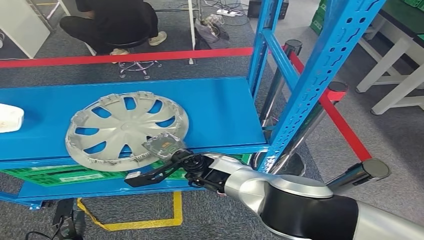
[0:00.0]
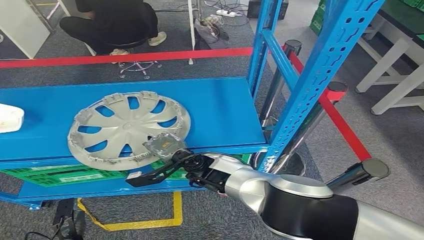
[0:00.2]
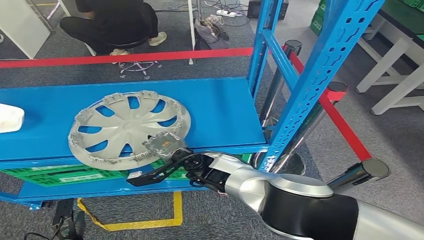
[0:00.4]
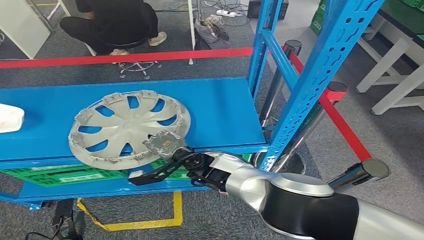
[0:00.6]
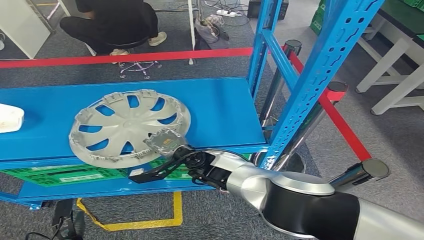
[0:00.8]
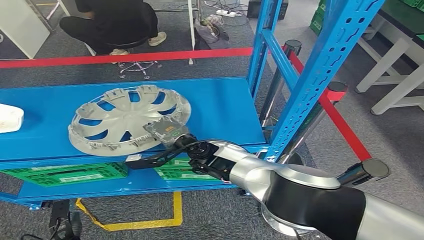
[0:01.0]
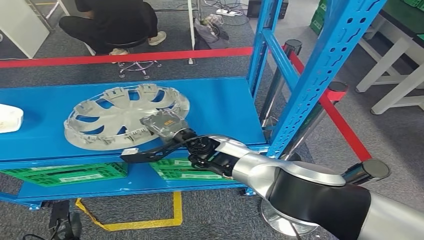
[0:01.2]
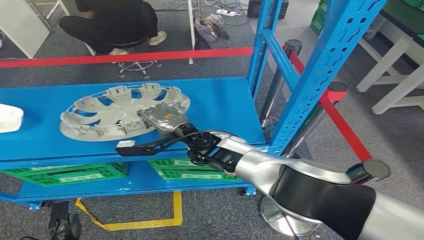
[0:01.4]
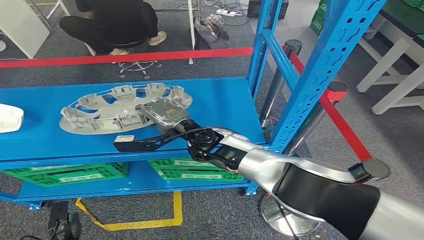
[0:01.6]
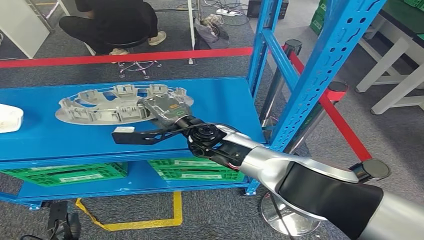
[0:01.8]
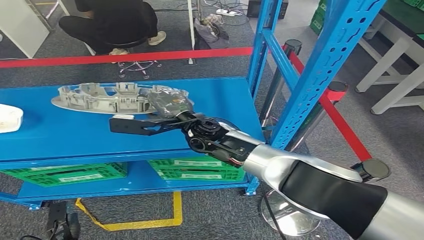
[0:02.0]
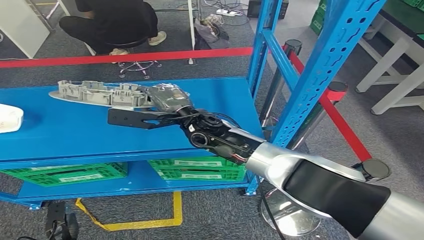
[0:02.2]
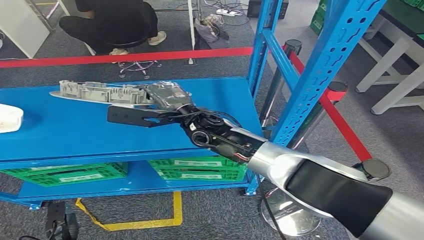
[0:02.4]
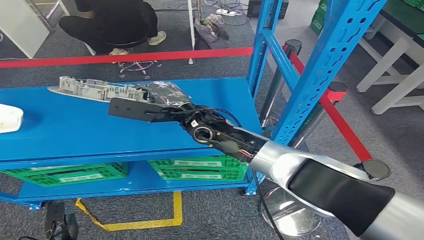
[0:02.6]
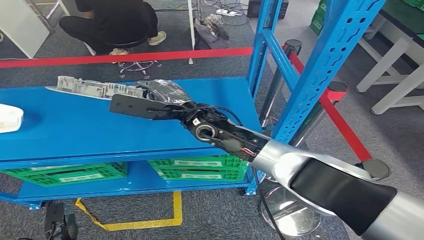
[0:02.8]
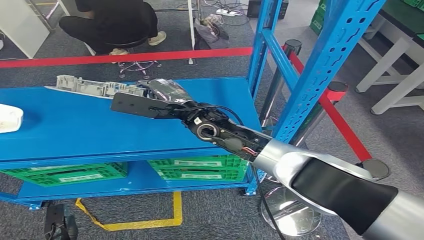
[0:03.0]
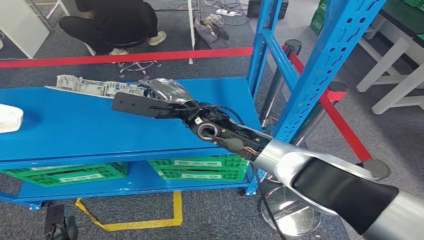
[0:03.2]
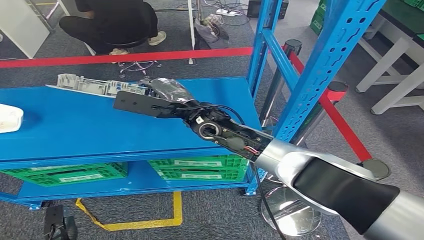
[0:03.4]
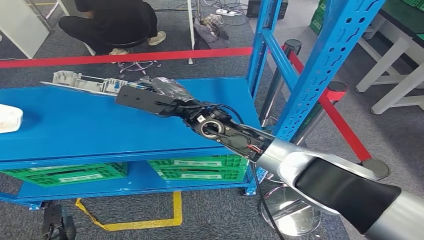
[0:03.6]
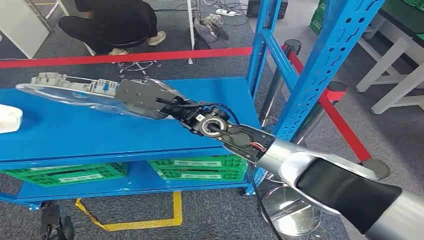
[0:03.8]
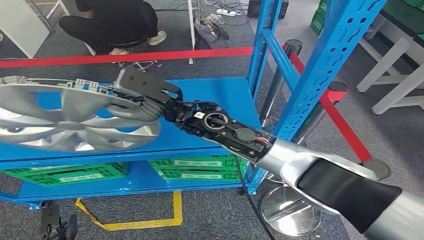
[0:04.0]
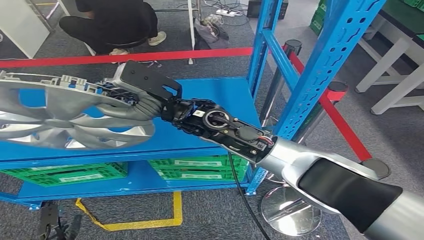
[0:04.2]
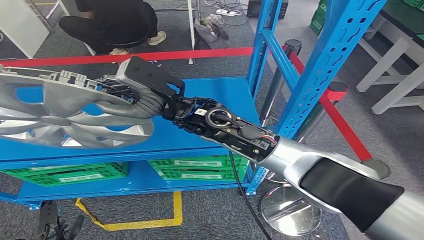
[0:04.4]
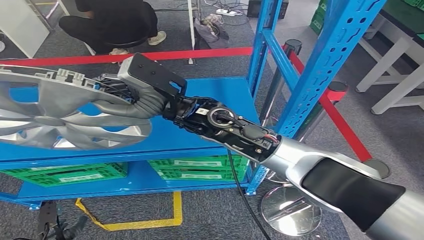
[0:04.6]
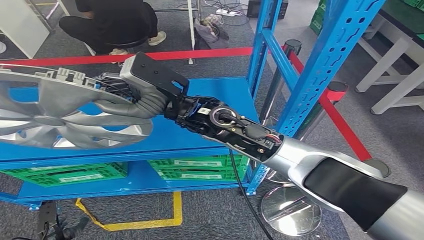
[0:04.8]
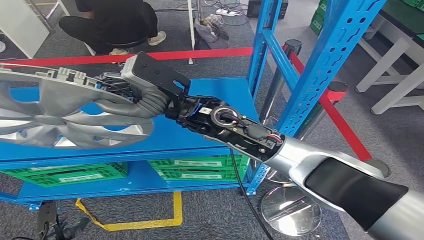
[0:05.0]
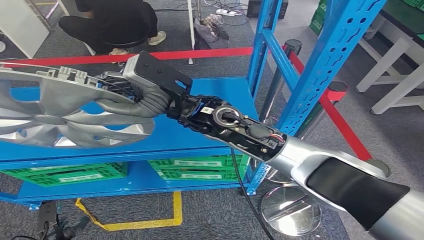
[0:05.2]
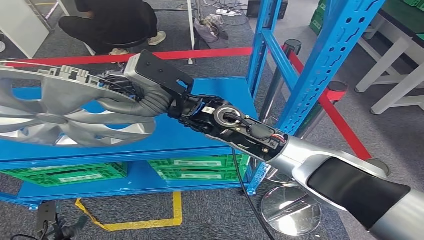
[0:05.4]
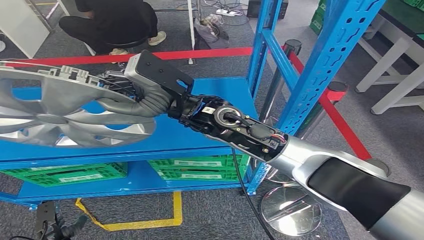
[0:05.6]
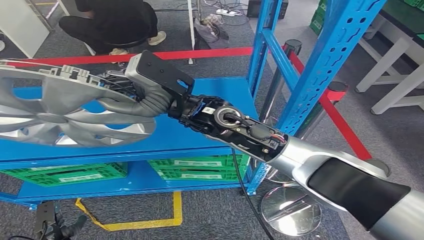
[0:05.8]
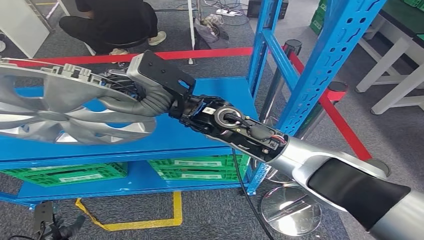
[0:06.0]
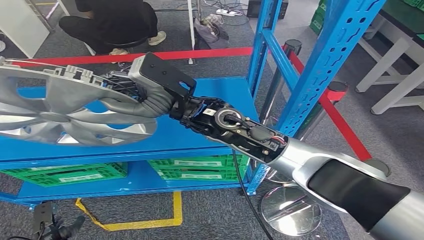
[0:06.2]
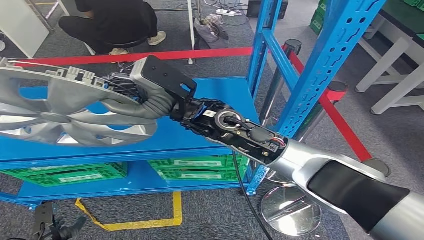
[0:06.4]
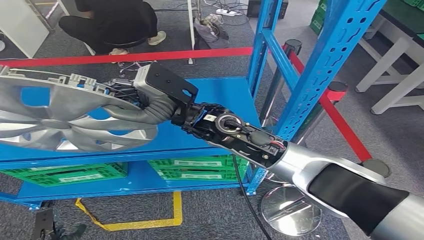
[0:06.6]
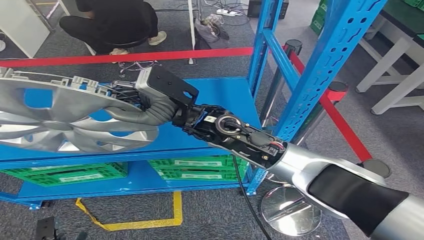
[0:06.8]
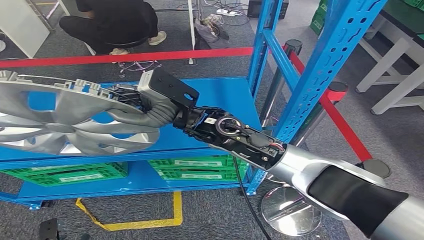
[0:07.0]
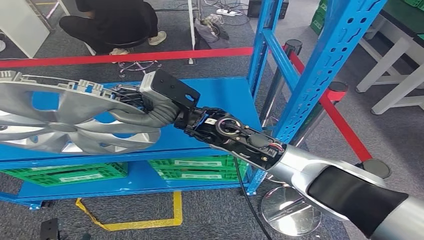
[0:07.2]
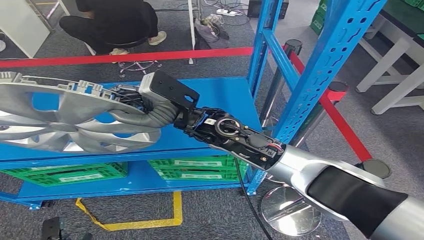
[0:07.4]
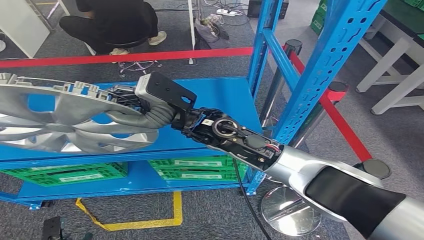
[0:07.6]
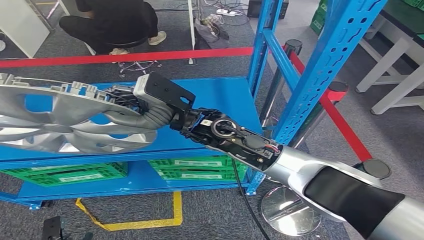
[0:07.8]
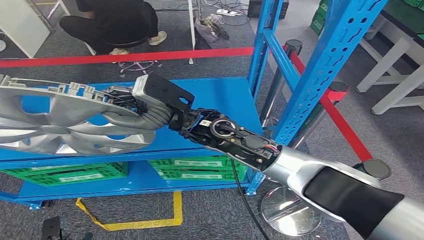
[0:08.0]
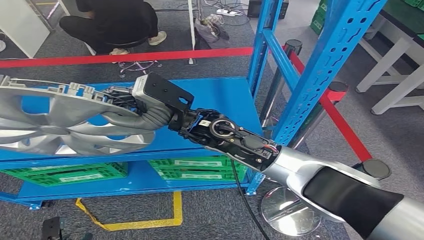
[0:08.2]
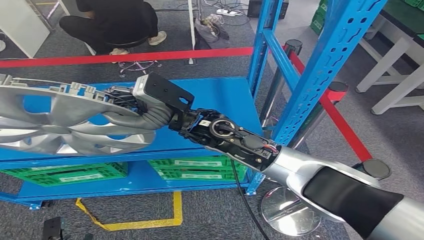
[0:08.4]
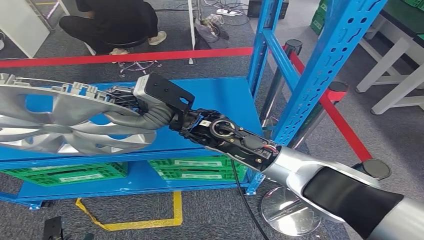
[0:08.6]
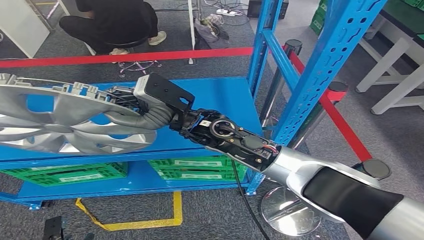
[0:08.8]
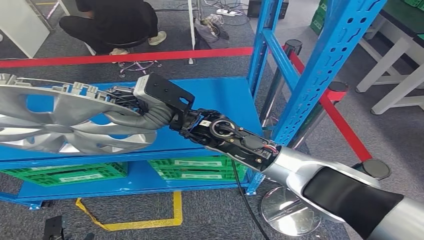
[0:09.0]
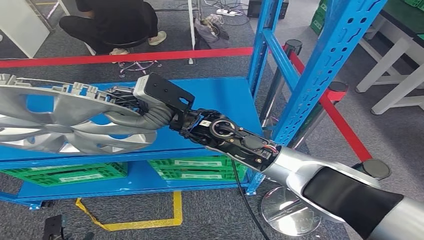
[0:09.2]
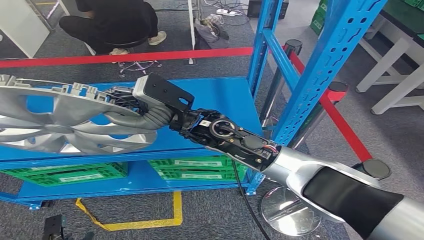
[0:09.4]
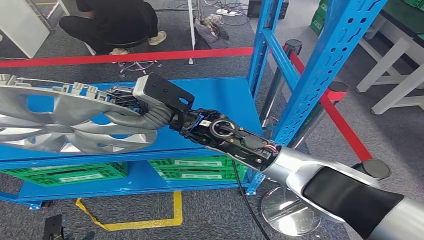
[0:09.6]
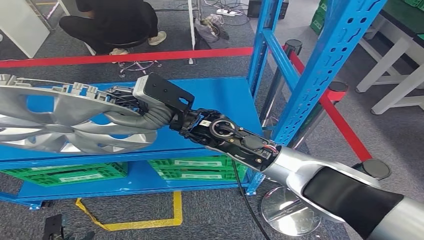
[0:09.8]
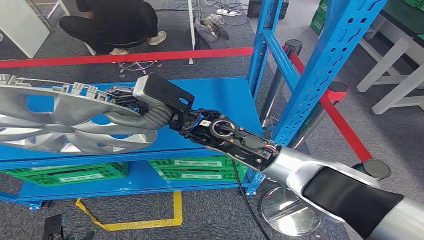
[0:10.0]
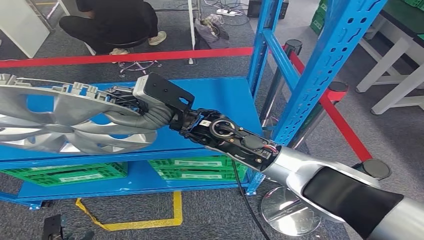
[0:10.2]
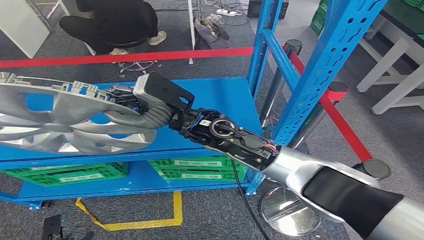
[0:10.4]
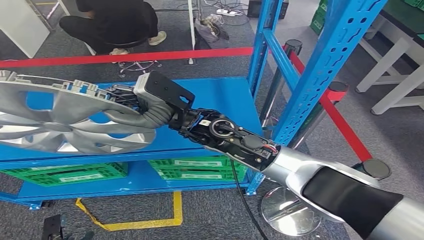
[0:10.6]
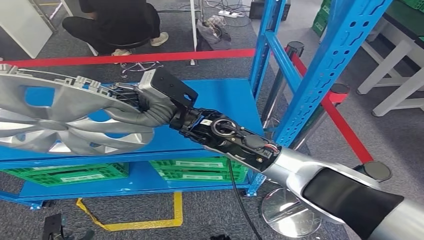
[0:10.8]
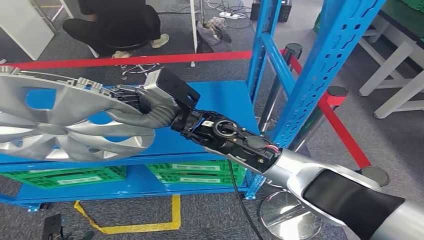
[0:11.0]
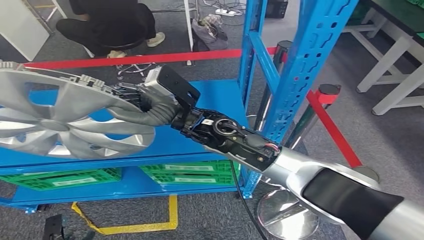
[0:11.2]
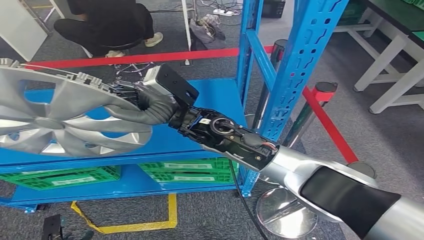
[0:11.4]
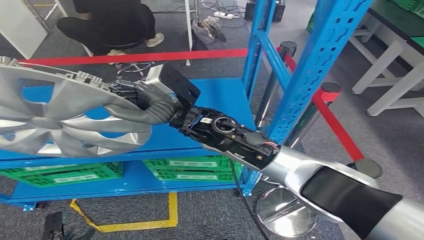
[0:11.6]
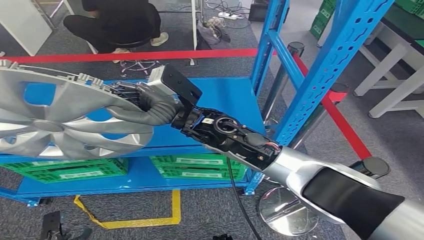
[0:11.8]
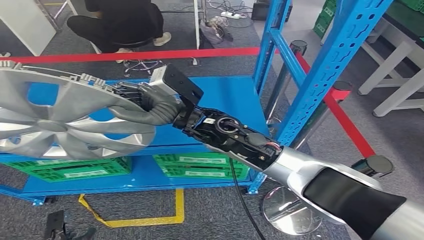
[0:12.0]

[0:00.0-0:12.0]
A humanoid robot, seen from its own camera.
Step, 0:00.0 to 0:02.6: Pick up the small component from the shelf.
0:01.6 to 0:03.0: The right hand goes some 5 cm upward.
0:03.0 to 0:04.4: The right hand is displaced upward by approximately 5 cm.
0:04.4 to 0:07.6: The hands make only small movements.
0:07.6 to 0:10.4: Both hands stay about where they are.

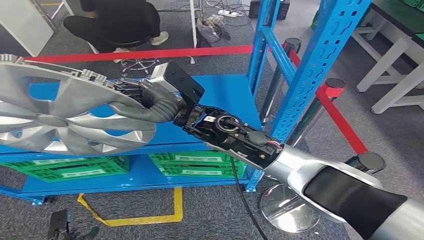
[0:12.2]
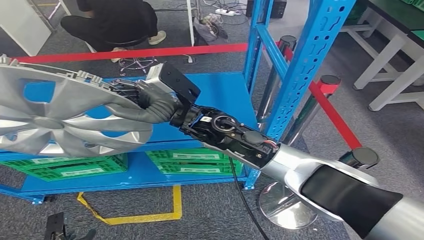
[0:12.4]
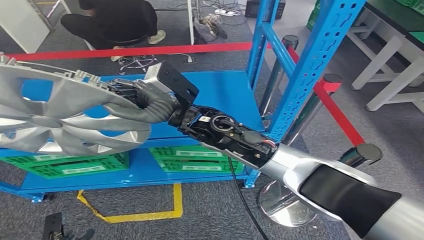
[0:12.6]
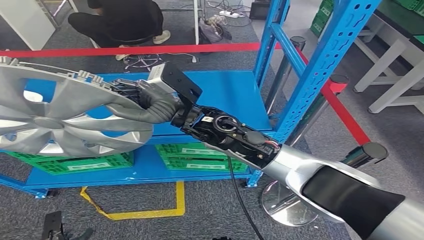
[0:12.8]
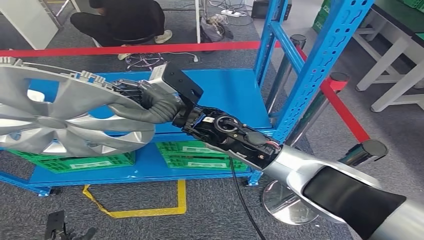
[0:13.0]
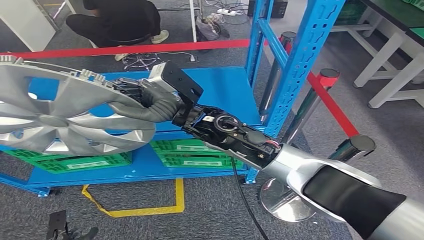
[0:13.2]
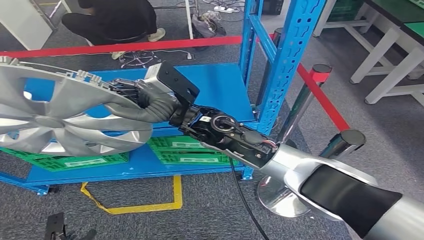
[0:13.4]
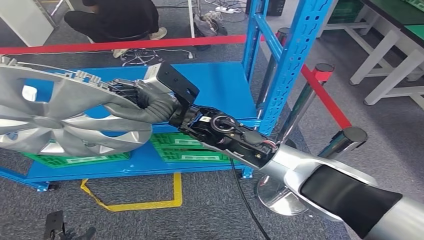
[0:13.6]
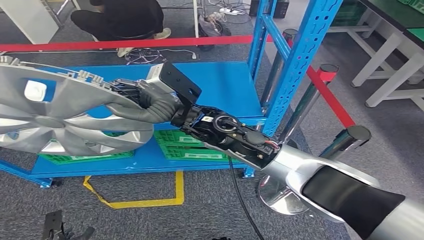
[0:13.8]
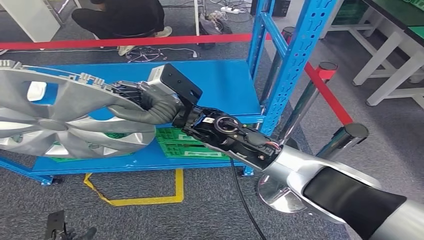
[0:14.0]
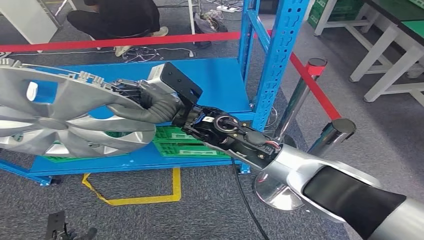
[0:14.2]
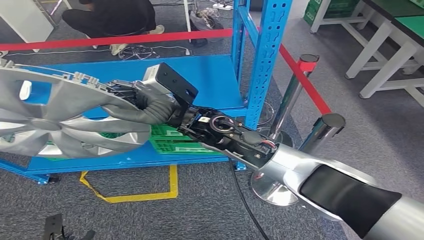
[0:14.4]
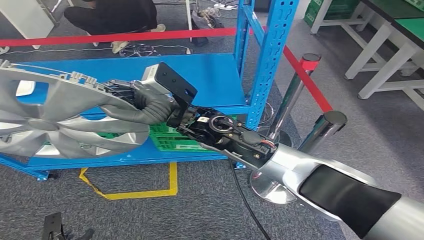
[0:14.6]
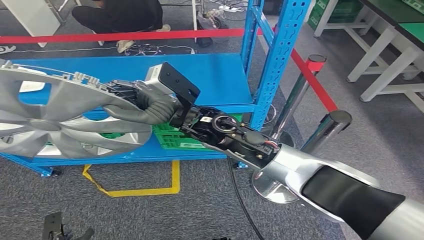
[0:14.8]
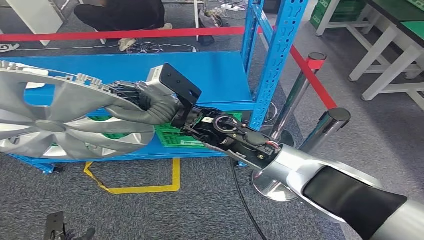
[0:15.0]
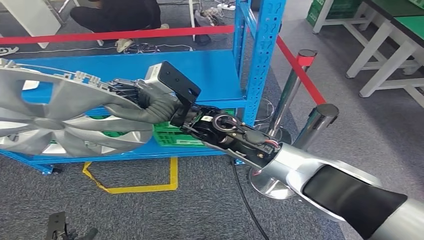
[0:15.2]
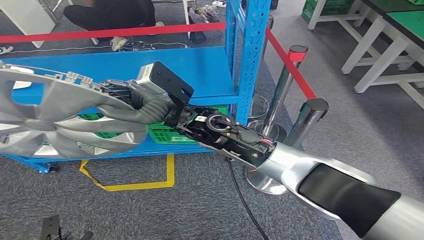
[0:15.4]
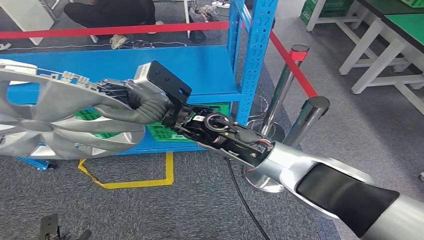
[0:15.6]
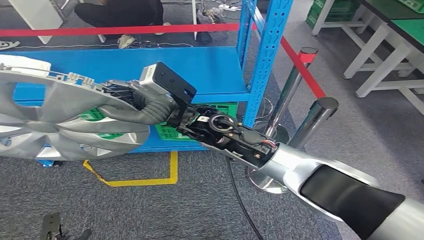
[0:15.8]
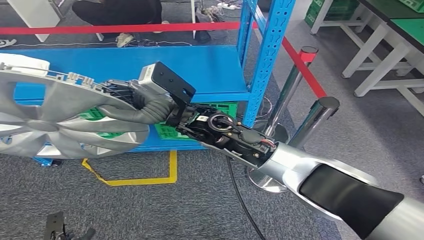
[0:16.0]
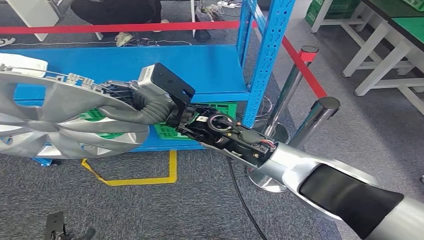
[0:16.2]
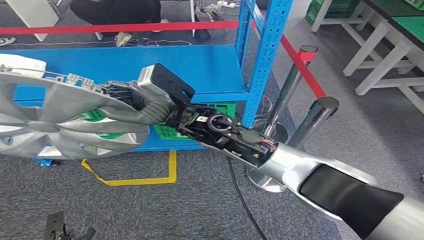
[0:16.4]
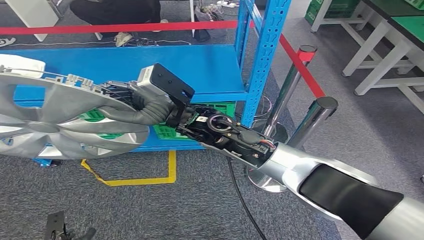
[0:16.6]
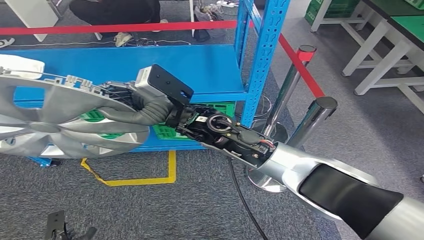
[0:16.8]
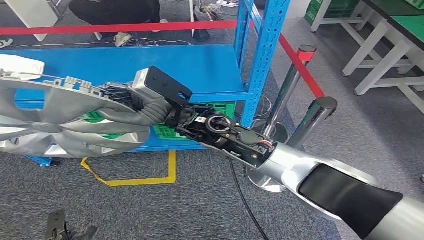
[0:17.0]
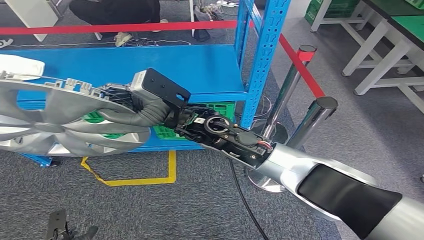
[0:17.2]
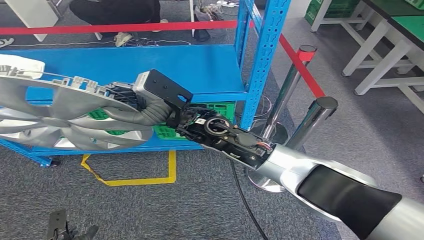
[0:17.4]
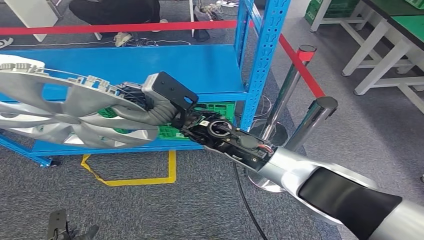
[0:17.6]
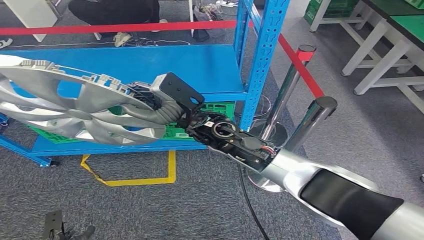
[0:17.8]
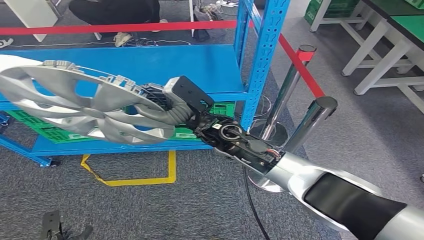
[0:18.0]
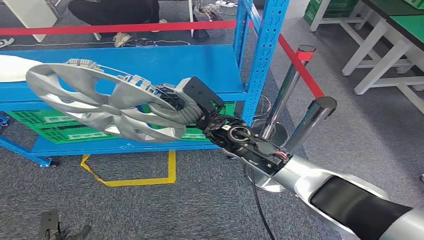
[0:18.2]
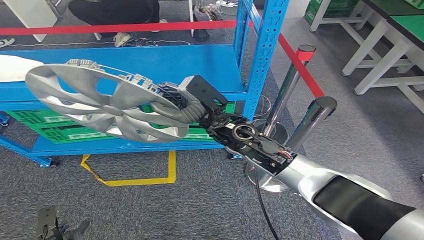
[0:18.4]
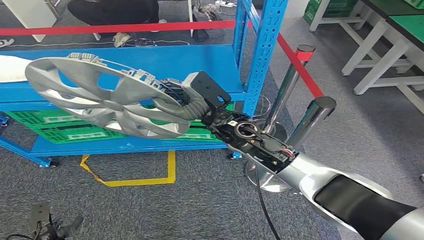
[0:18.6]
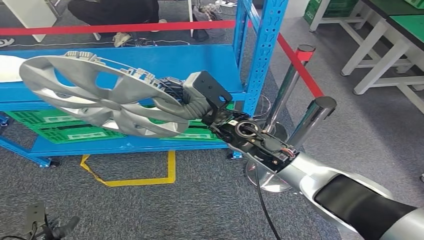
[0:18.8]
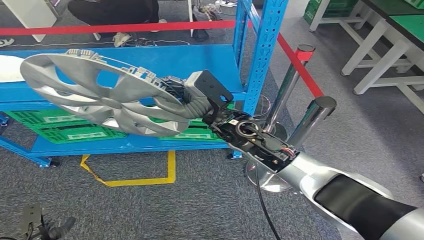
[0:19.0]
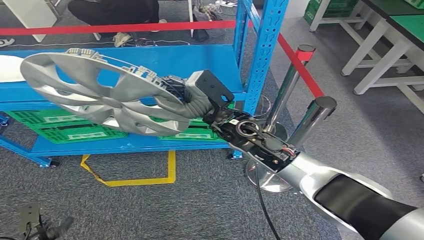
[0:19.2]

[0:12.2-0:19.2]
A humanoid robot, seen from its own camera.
0:16.4 to 0:17.8: The hands make only small movements.
